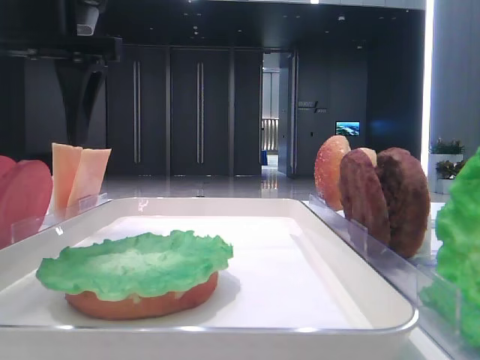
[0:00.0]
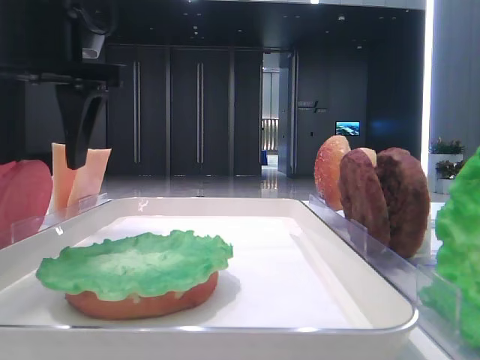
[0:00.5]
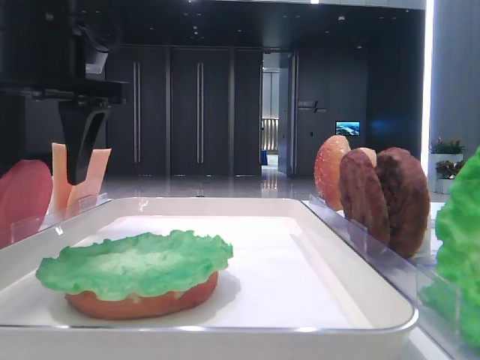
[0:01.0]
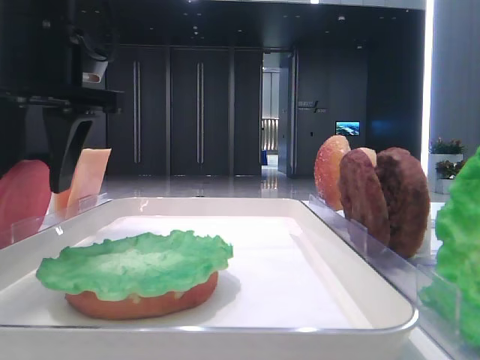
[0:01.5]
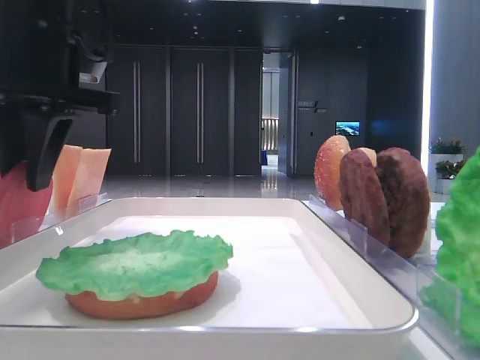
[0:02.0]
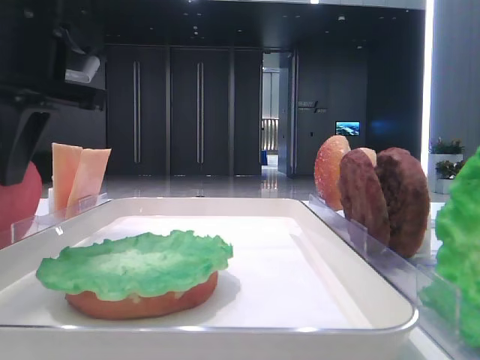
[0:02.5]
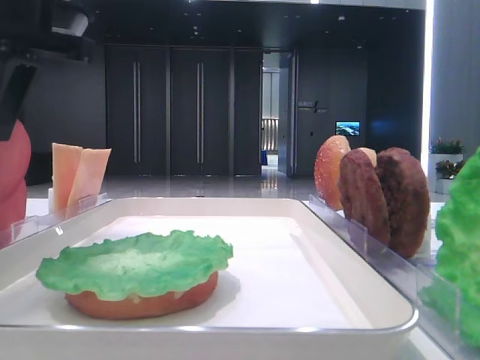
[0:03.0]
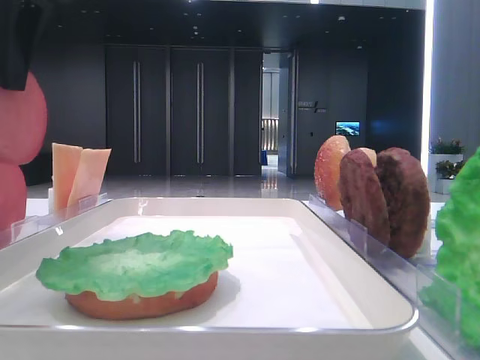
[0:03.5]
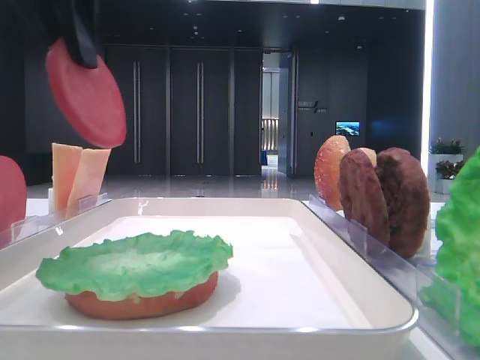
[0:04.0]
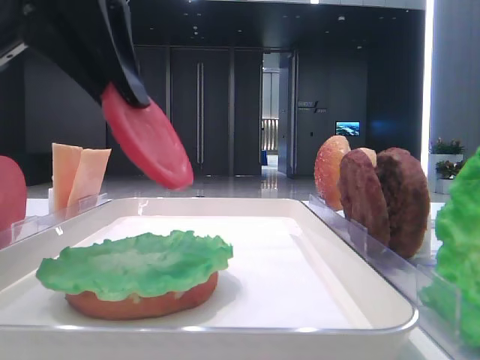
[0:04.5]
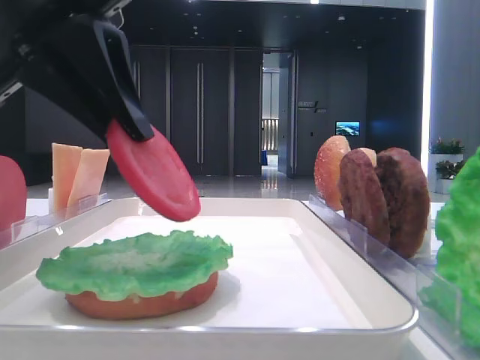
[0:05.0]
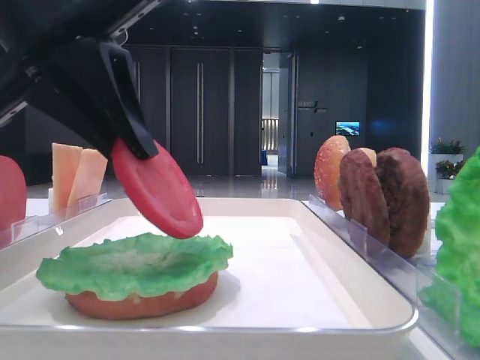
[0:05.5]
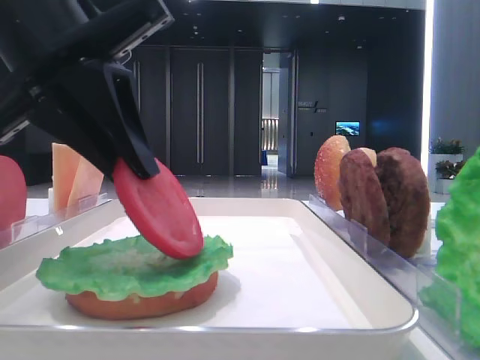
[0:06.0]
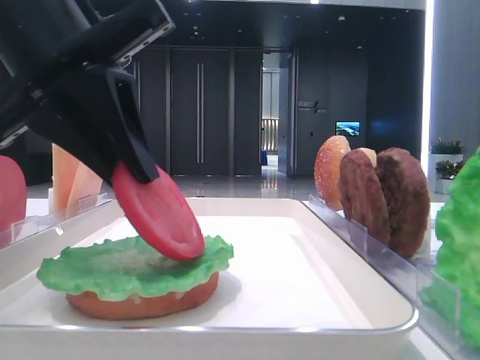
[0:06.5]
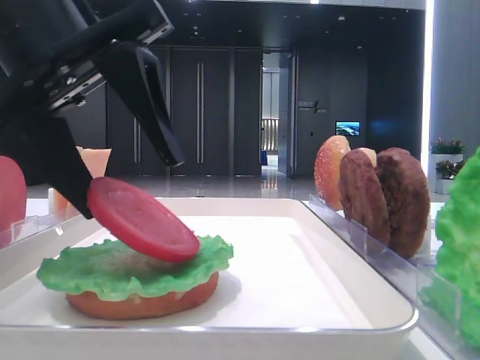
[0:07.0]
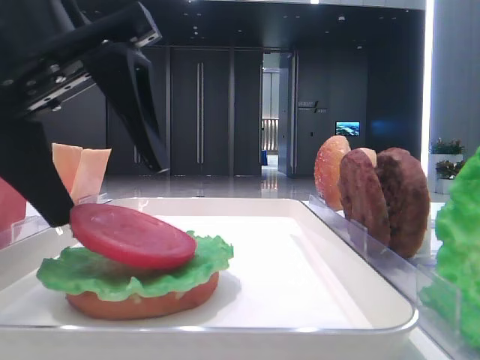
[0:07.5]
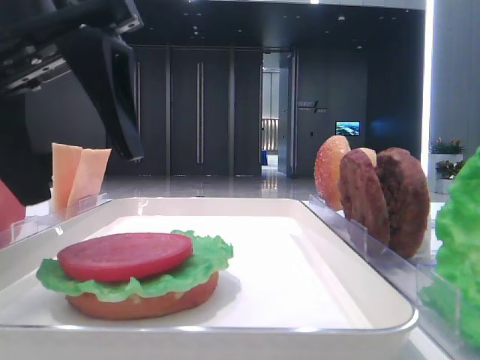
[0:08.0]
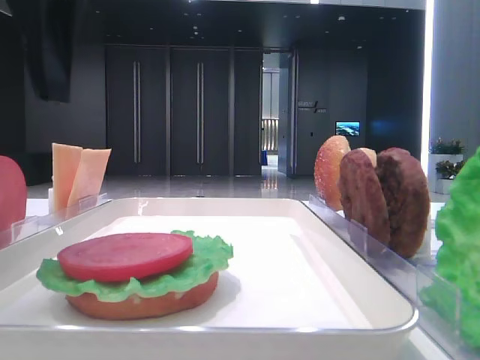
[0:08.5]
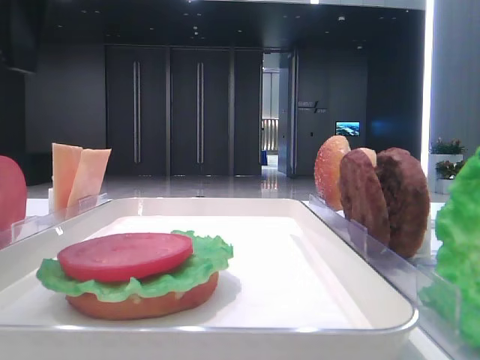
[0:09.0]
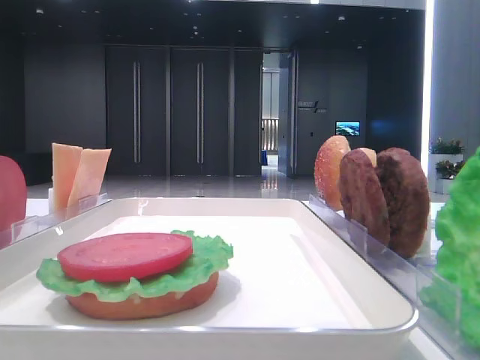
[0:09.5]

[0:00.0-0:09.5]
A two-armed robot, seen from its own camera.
Step, 0:00.0 to 0:03.0: Pick up the tomato slice with the left hand.
Step, 0:03.5 to 0:07.5: Place the tomato slice on the lettuce leaf with the left hand.
0:00.0 to 0:02.0: The left gripper closes up.
0:02.0 to 0:04.0: The left gripper moves upward, roughly 10 cm.
0:04.0 to 0:05.5: The left gripper is displaced downward by approximately 10 cm.
0:05.5 to 0:07.5: The left gripper opens its fingers.
0:07.5 to 0:09.5: The left gripper travels upward and to the left by some 15 cm.

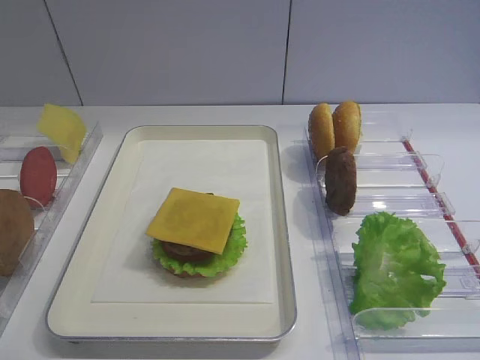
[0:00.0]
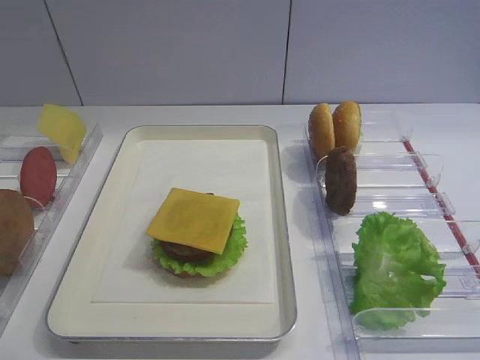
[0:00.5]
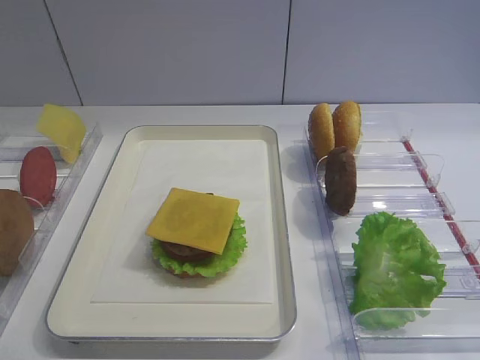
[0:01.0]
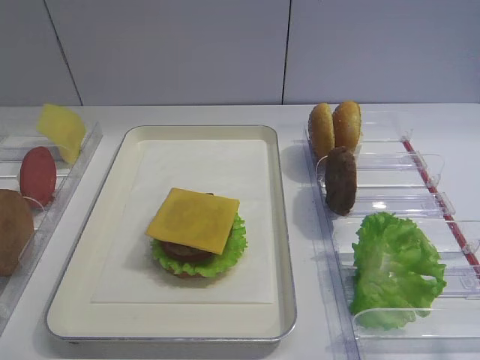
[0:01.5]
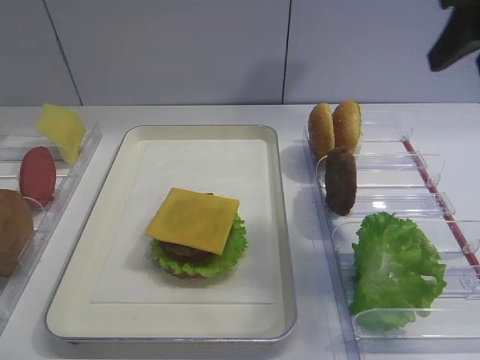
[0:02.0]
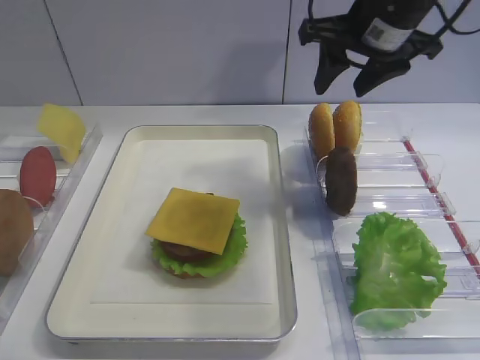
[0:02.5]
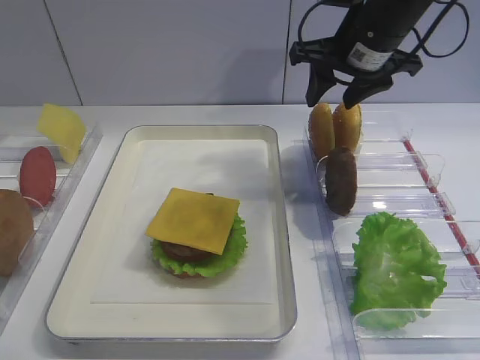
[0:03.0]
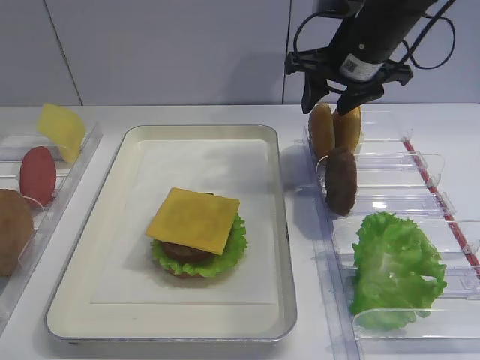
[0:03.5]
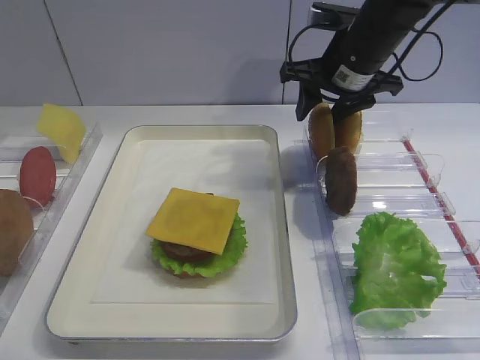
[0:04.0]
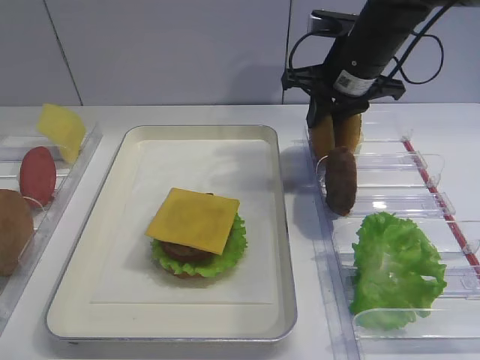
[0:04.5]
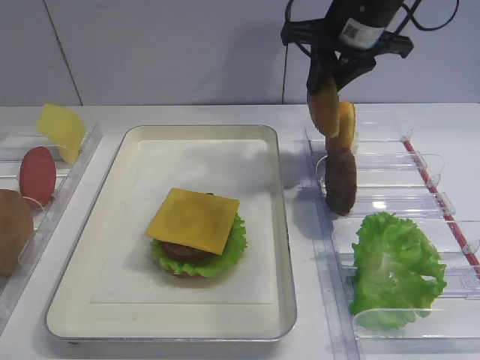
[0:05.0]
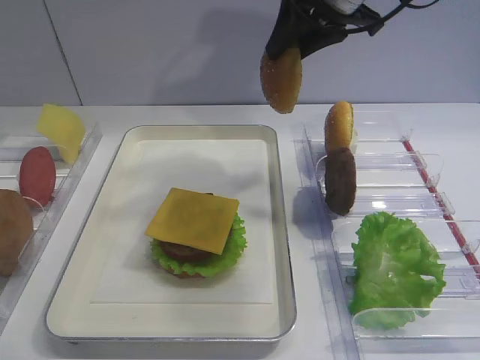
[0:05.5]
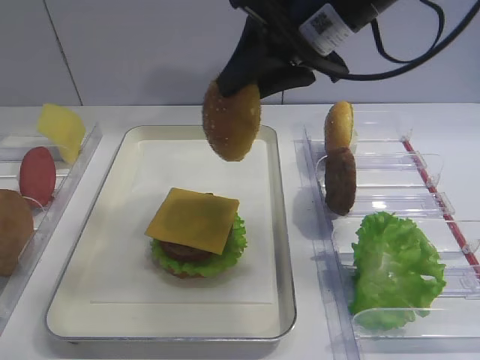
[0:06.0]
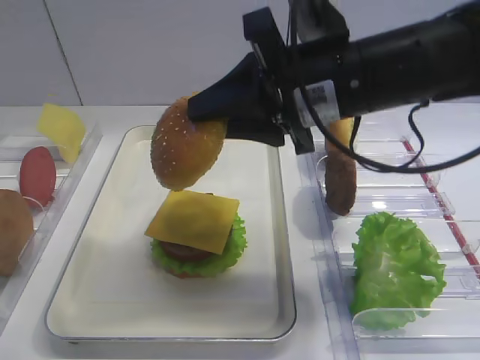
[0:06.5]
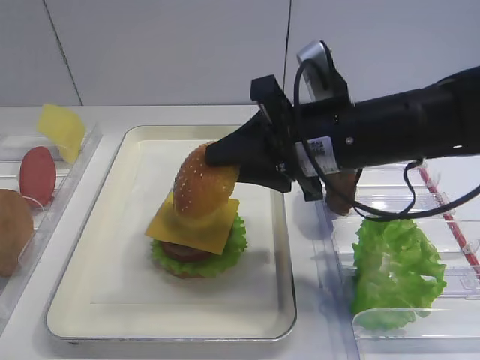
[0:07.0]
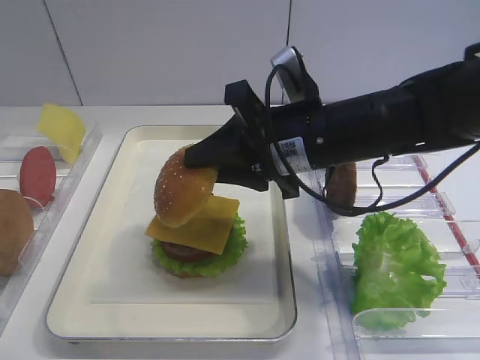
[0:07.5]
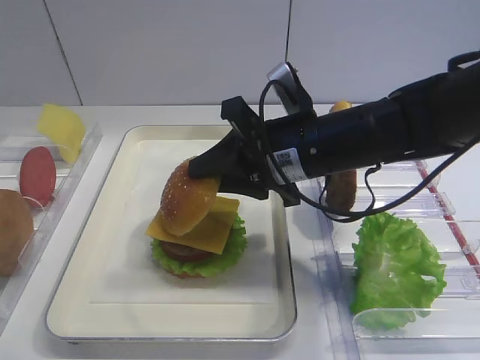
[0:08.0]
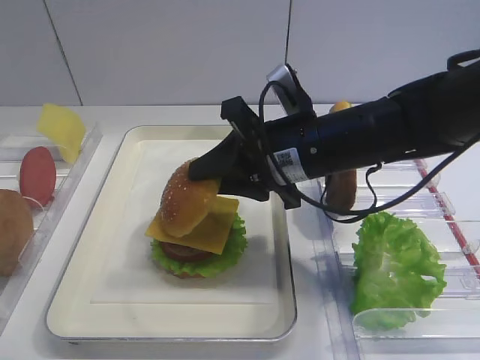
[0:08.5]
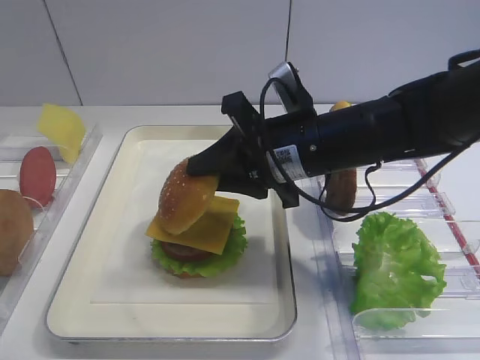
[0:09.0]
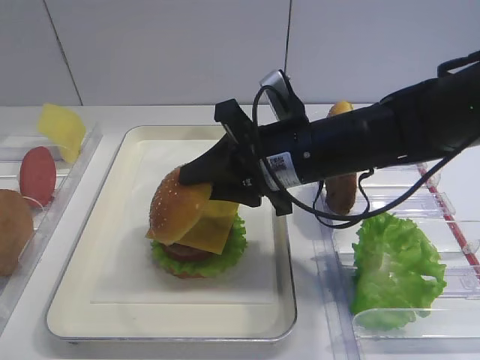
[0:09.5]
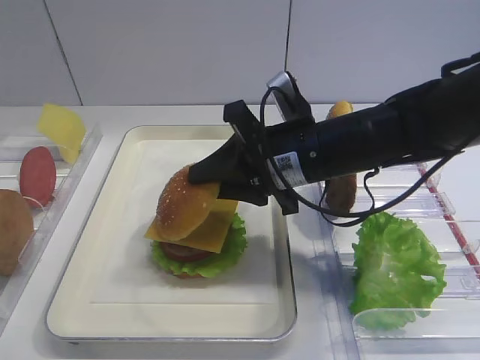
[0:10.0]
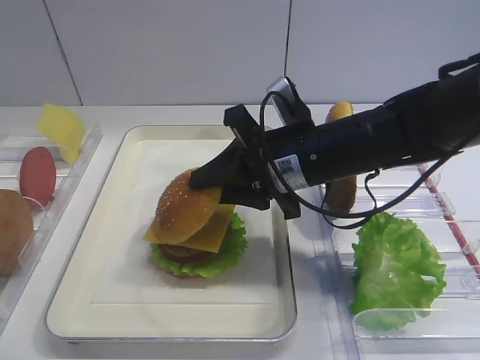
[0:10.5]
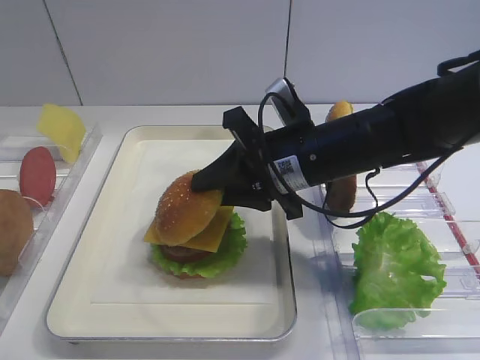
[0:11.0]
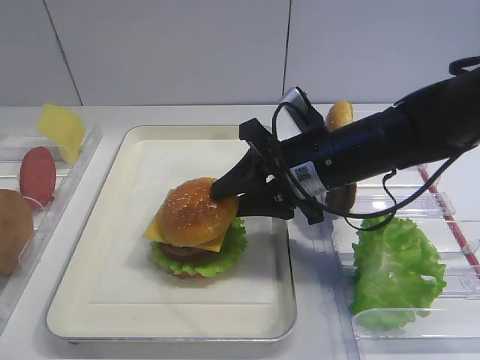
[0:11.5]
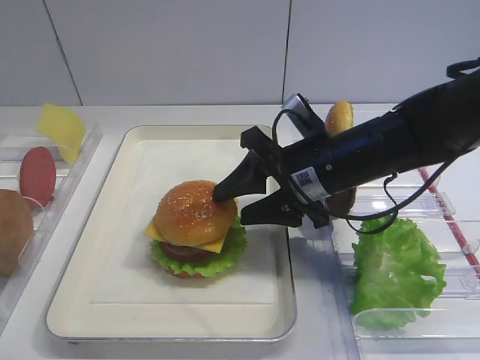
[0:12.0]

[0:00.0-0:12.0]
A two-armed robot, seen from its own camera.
Step, 0:00.0 to 0:04.5: Pick up the hamburger lid with the right gripper.
0:02.0 to 0:04.0: The right gripper moves forward, downward and to the left, some 20 cm.
0:04.0 to 0:06.0: The right gripper goes some 15 cm backward, upward and to the left, and closes.
0:06.0 to 0:08.0: The right gripper is displaced downward by roughly 15 cm.
0:08.0 to 0:10.0: The two grippers keep their place.
0:10.0 to 0:12.0: The right gripper opens its fingers.

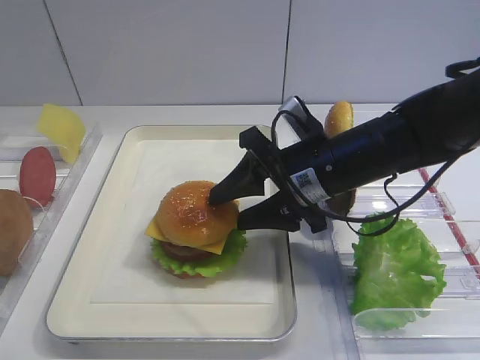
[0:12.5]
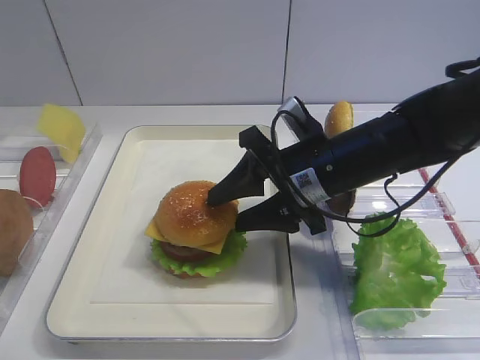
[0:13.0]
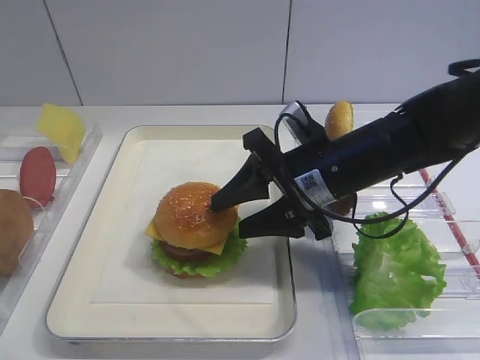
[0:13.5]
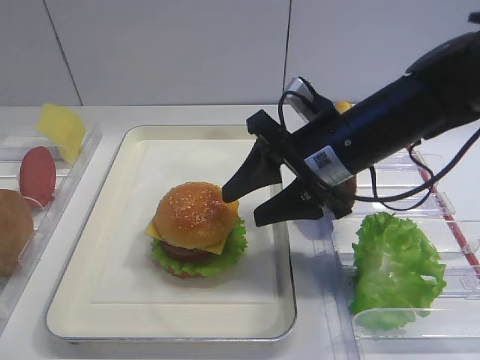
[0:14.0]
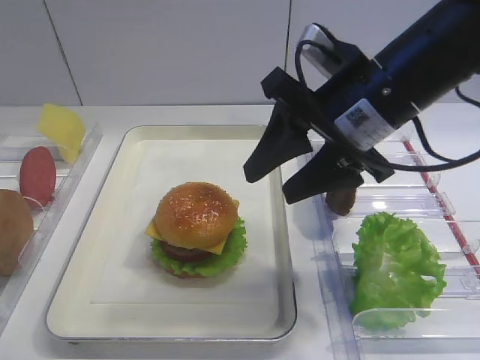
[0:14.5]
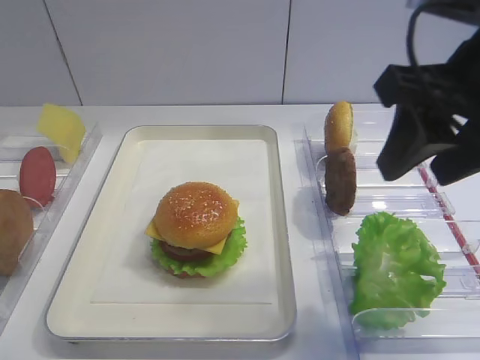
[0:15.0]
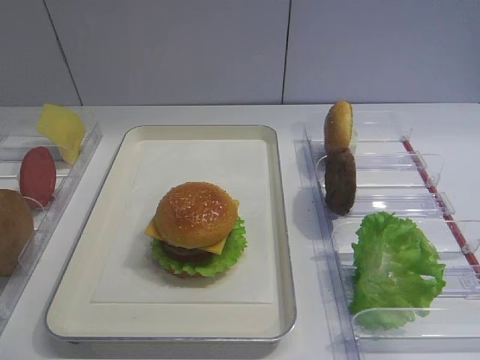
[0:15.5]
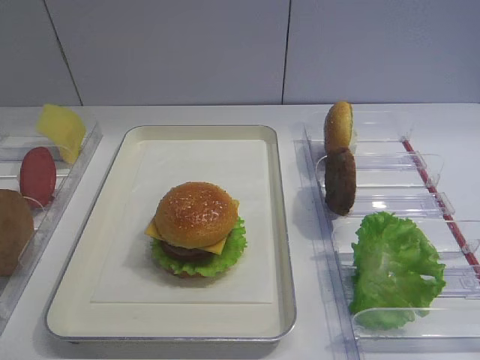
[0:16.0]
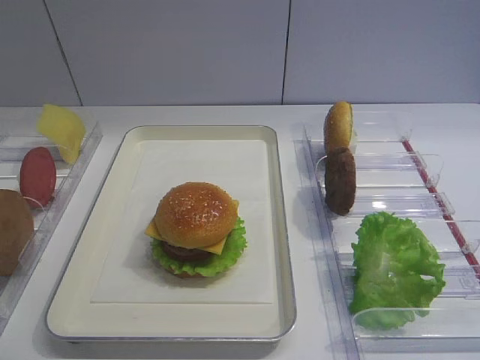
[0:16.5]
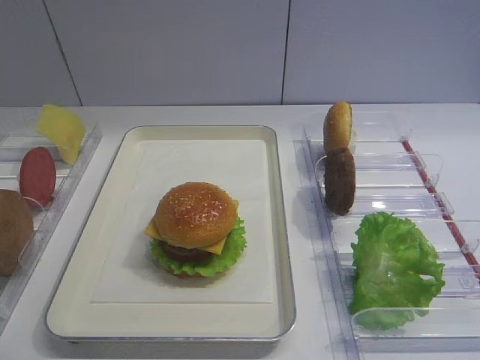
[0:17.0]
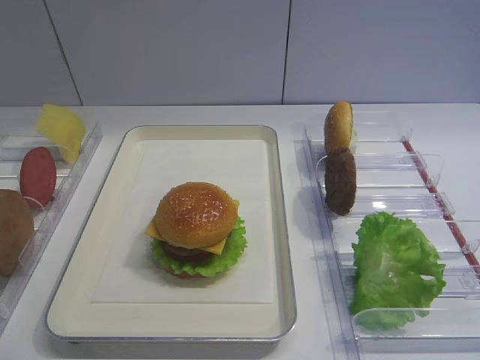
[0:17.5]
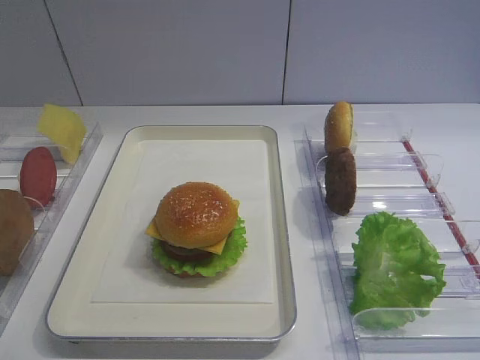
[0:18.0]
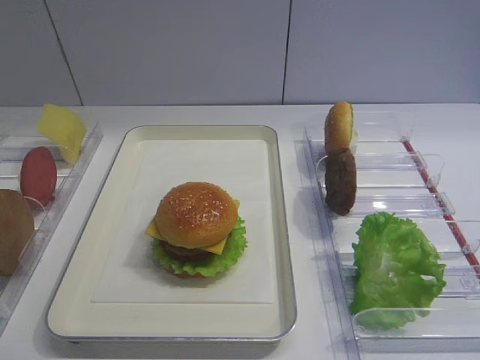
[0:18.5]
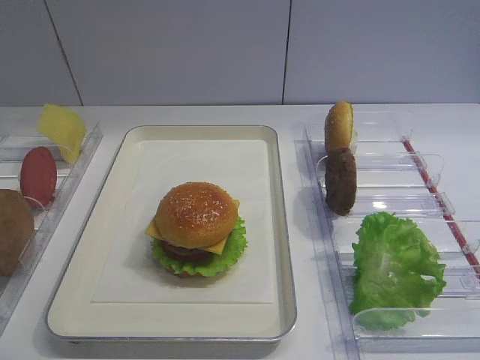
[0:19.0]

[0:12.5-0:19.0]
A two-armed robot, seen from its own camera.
0:12.5 to 0:14.5: The right gripper heads upward, covering approximately 10 cm.
0:14.5 to 0:17.0: The right gripper goes approximately 30 cm backward and to the right, and closes.
0:17.0 to 0:19.0: Both grippers stay put.
